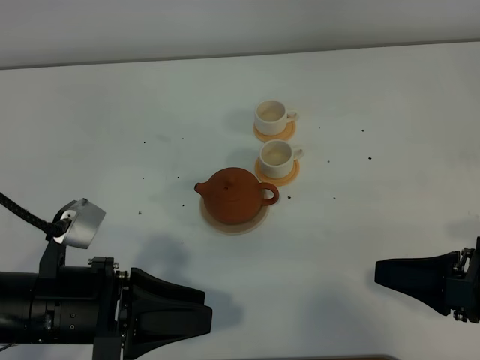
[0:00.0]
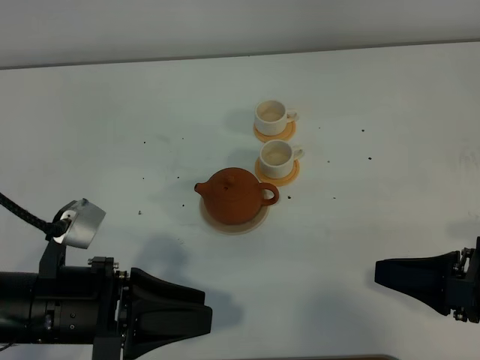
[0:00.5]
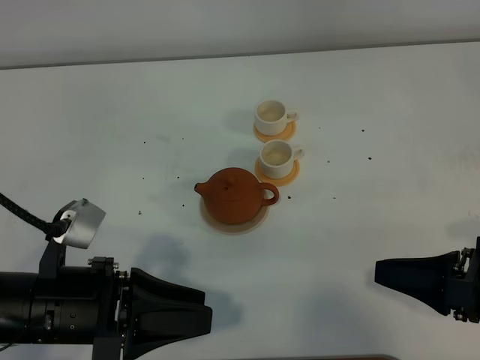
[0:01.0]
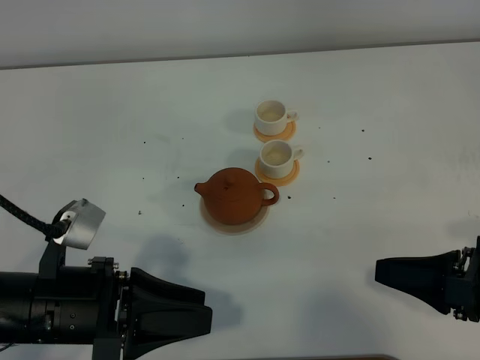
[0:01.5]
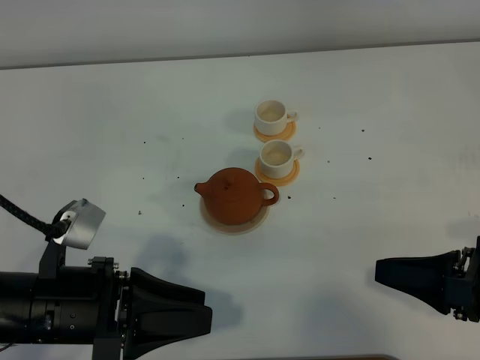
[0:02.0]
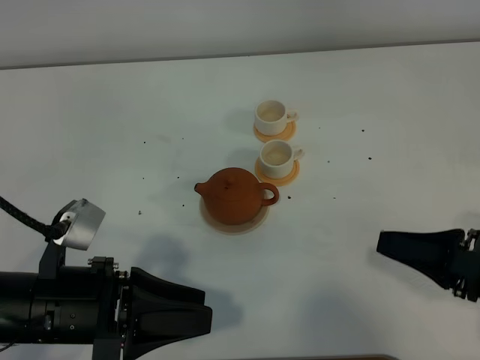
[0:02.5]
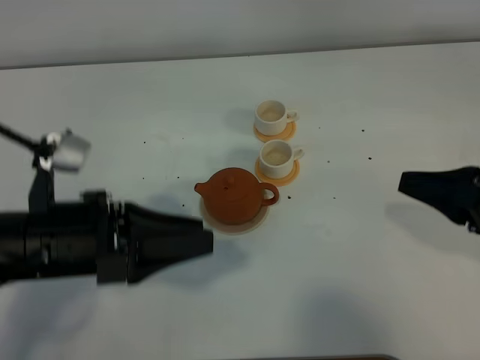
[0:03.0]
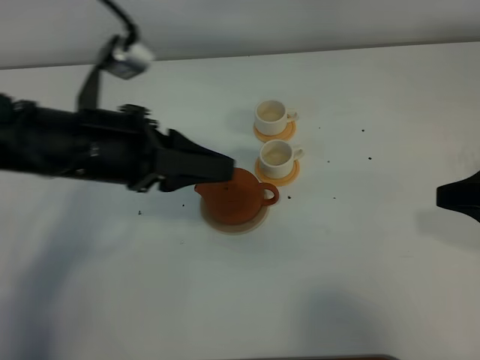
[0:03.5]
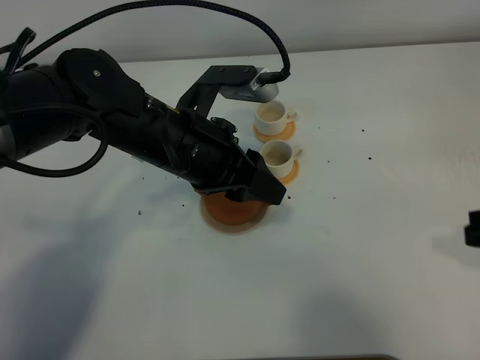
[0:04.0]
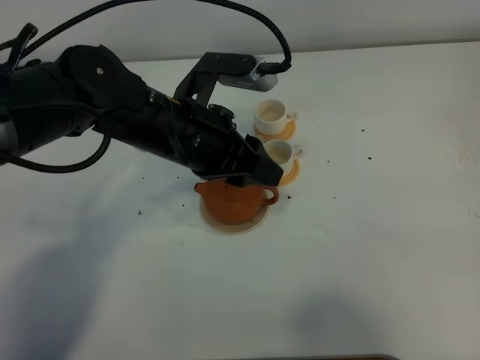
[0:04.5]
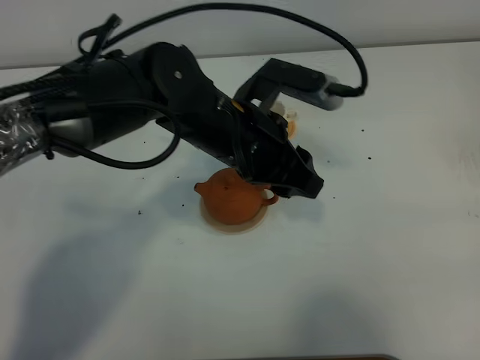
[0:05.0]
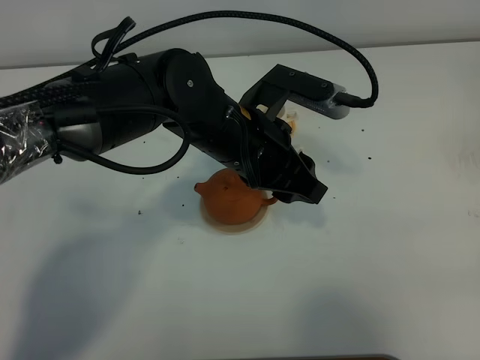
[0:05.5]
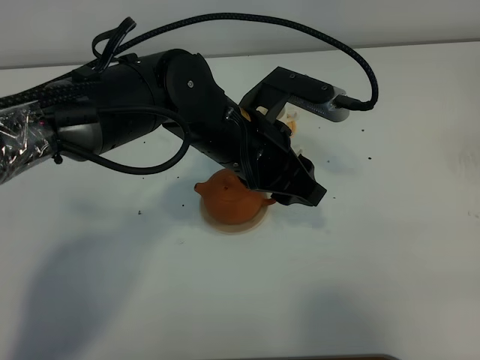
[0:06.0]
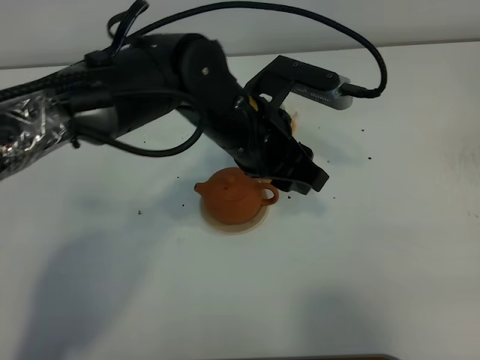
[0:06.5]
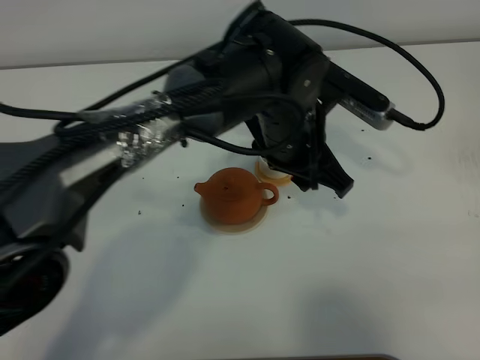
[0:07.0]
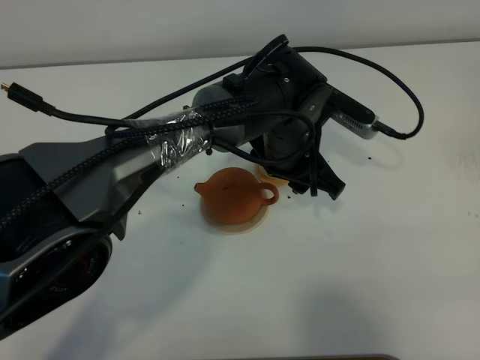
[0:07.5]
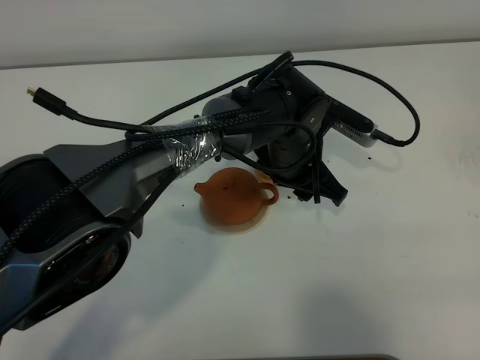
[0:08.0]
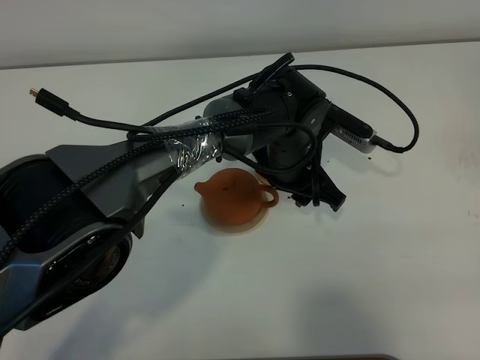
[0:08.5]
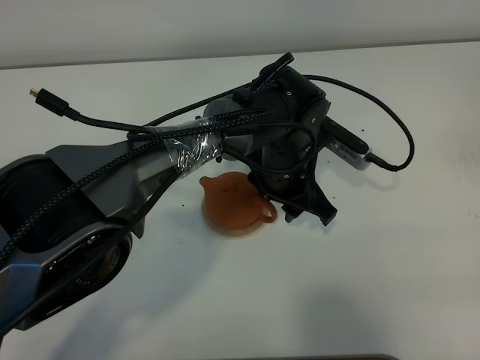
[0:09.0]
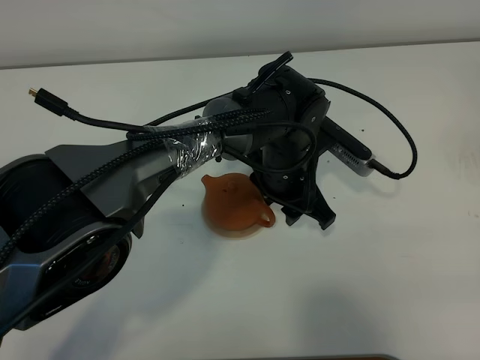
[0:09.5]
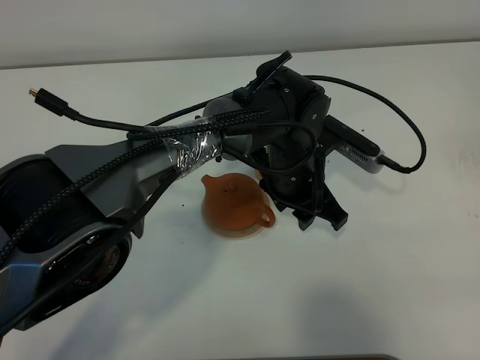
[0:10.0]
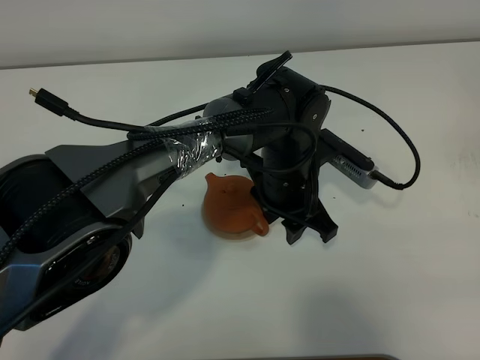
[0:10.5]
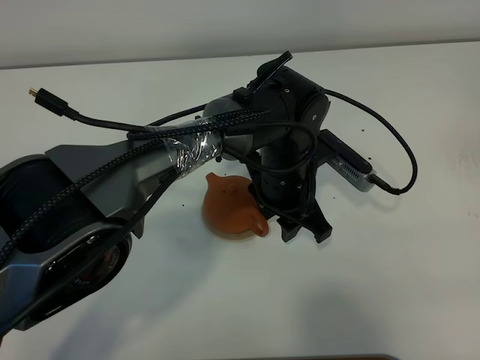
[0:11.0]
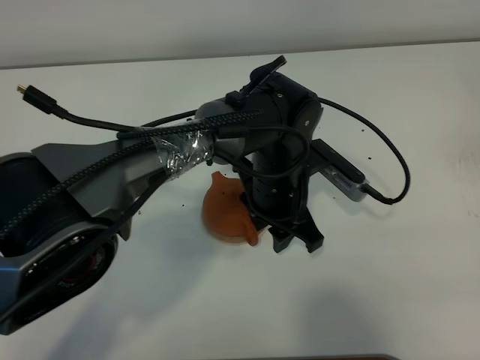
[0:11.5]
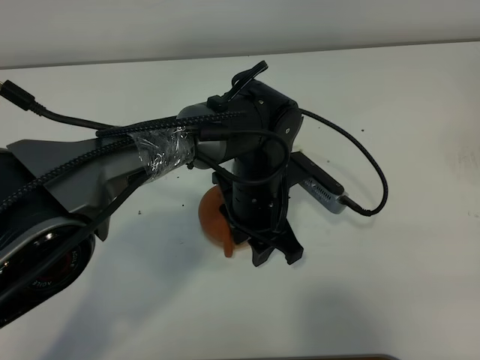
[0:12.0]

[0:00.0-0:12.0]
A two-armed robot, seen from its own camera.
Task of the whole recording: grasp the brown teapot and pour the tea into the two white teacups one by one, put the brown teapot back in its original place.
0:00.0 to 0:02.0: The two grippers keep their place.
0:02.0 to 0:04.0: The right gripper travels upward by some 5 cm. The left gripper moves forward and to the right, roughly 20 cm.
0:04.0 to 0:06.0: The left gripper shifts some 5 cm to the right, while the right gripper is displaced backward by some 15 cm.
0:06.0 to 0:08.0: The left gripper is displaced downward, to the right and forward by some 10 cm.
0:08.0 to 0:10.0: The grippers stay close to where they were, moving slightly.
0:10.0 to 0:12.0: The left gripper moves about 5 cm.

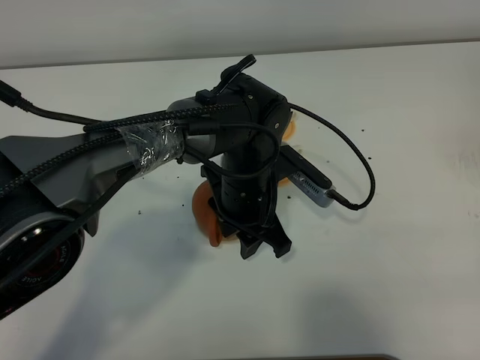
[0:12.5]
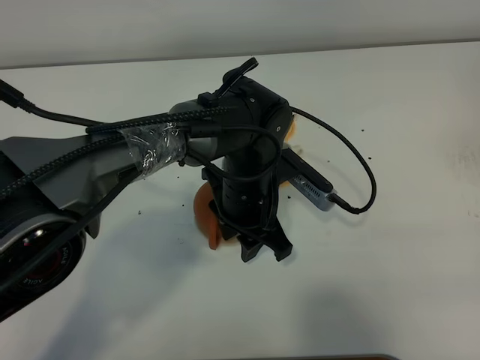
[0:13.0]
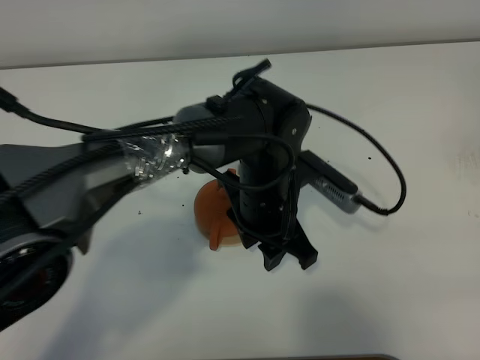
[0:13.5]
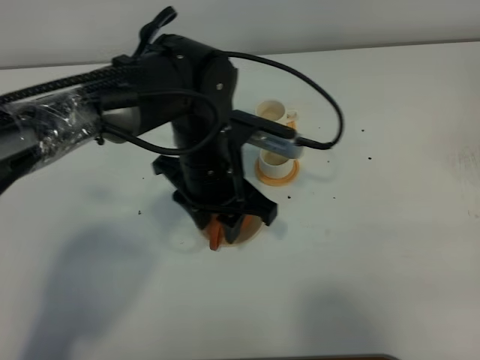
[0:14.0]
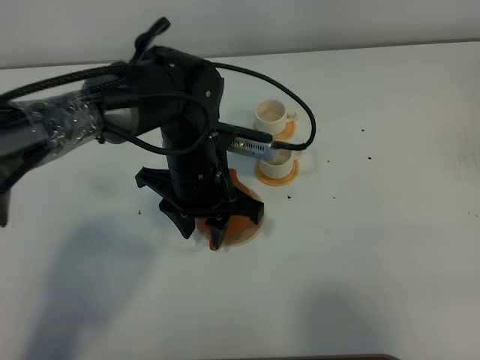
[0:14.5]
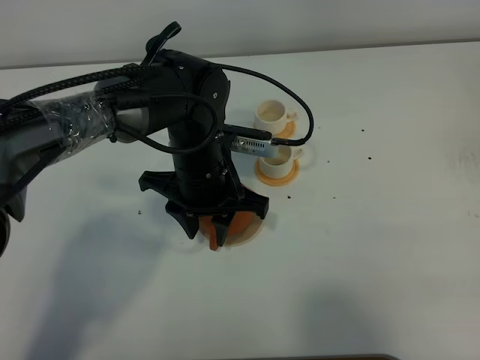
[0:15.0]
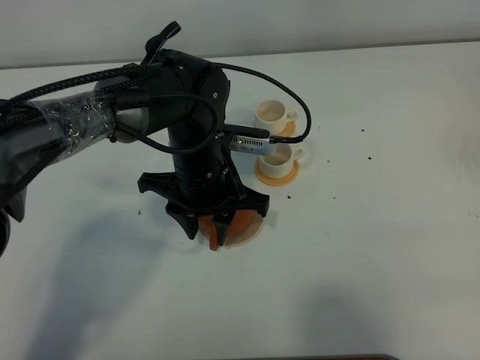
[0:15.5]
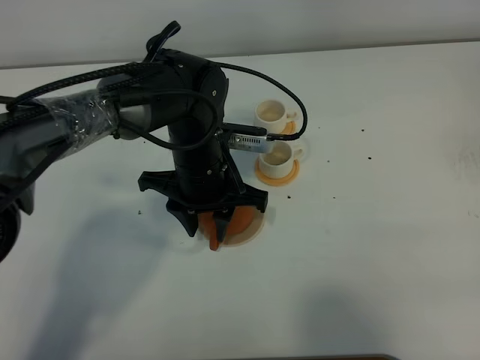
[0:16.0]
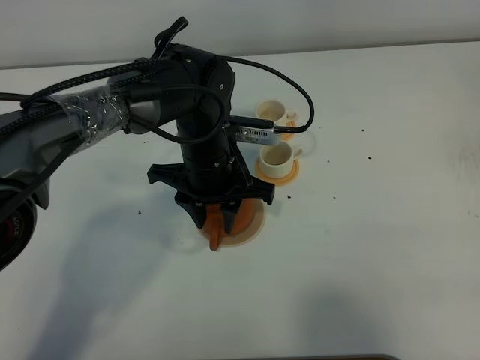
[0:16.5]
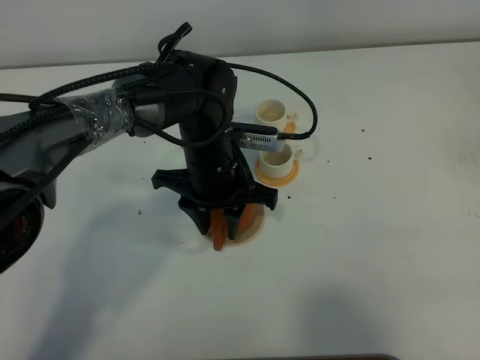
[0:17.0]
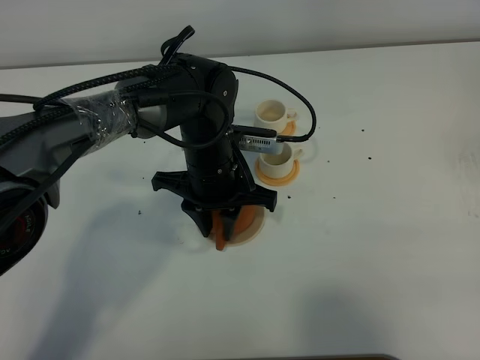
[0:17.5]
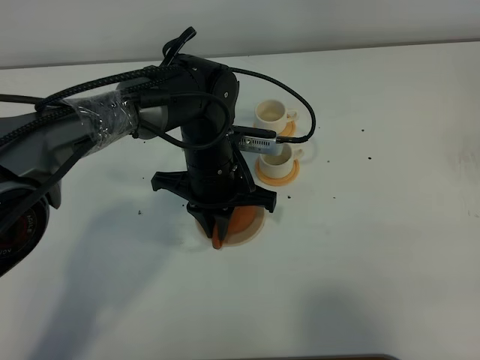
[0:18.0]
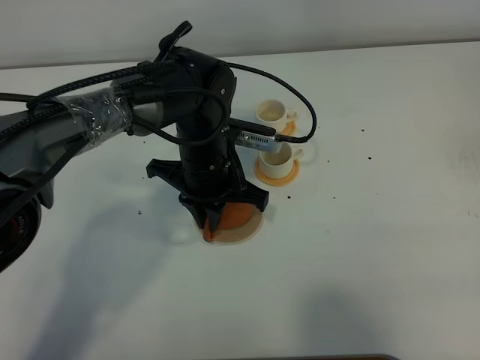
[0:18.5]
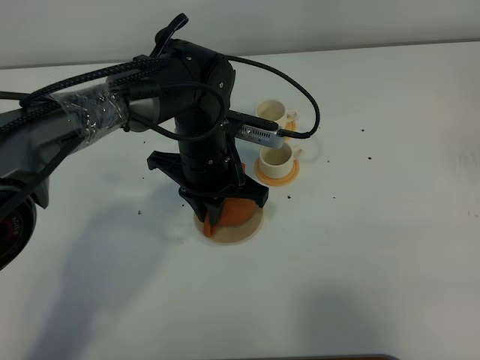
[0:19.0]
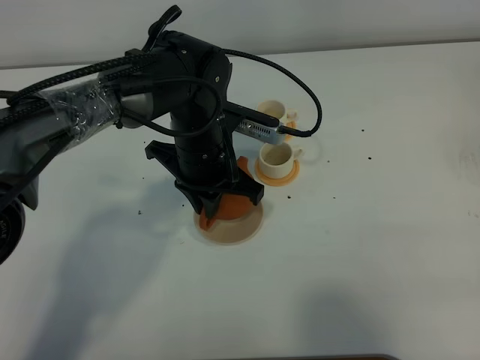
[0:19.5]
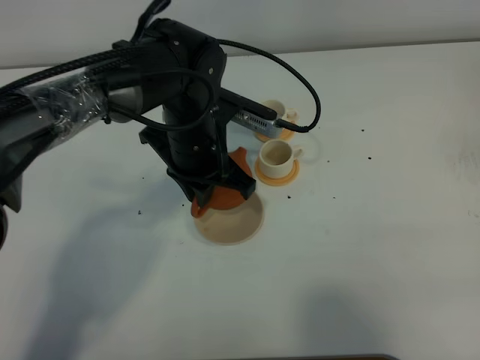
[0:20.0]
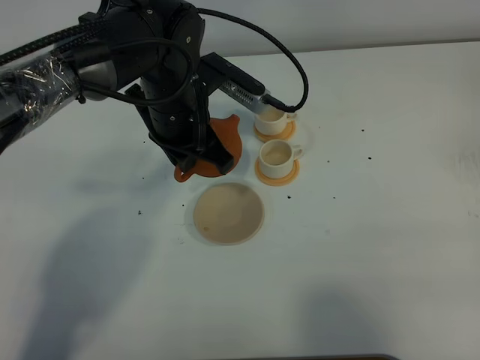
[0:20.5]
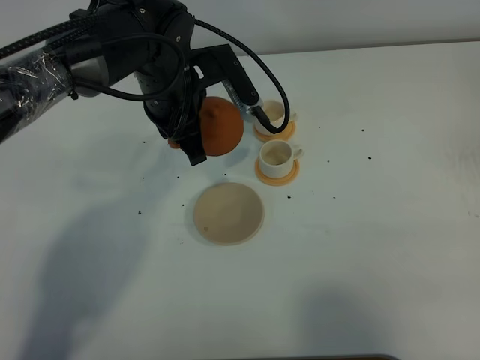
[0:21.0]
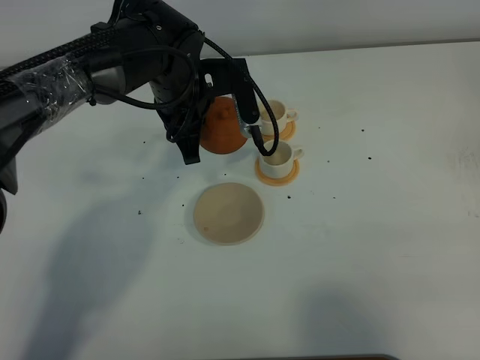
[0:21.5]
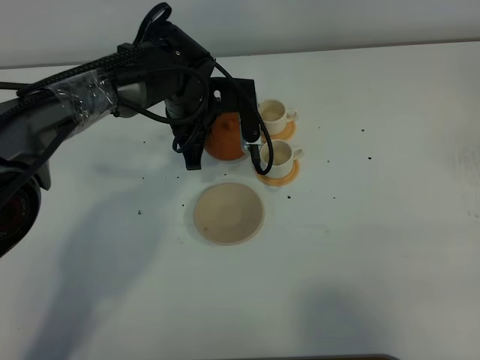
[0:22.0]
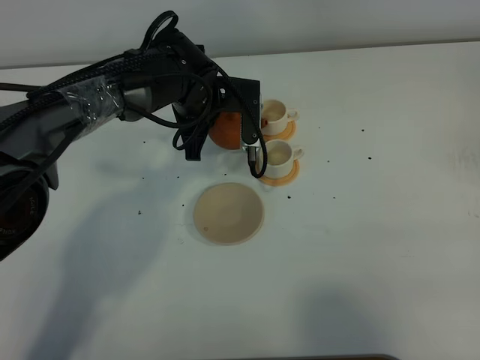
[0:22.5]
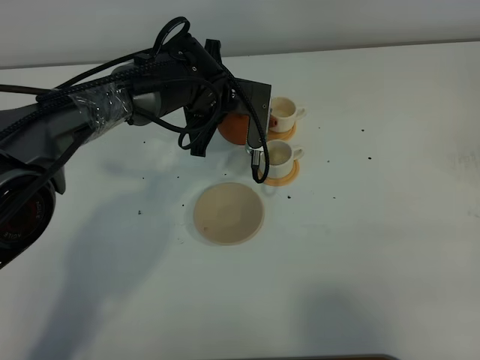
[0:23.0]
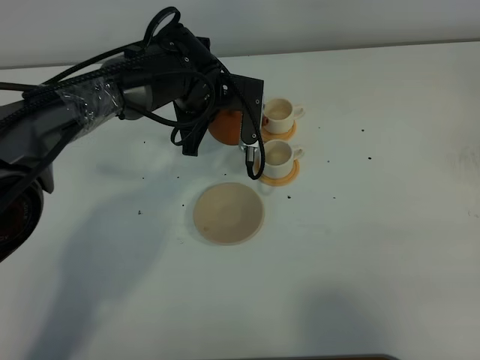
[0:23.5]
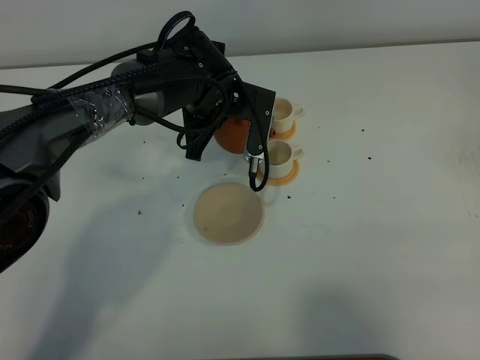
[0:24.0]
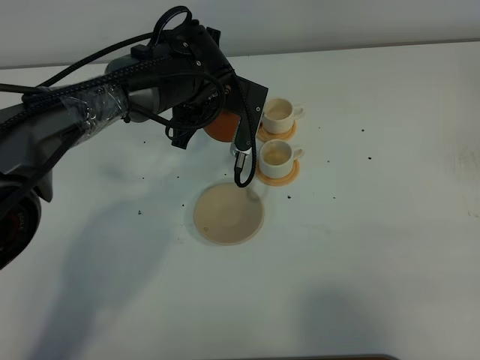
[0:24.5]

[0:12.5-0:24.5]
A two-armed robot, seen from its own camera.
Task of the whole recording: grasp the brown teapot and pour the tea into the two white teacups one by one, put the brown teapot back in its original place.
Step, 0:12.5 to 0:19.5: Pick up the teapot with the left gripper.
0:12.5 to 0:14.5: The left gripper travels to the left by approximately 5 cm.
0:14.5 to 0:16.5: The grippers move only a little.
0:16.5 to 0:18.5: The left gripper closes.
0:18.5 to 0:20.5: The left gripper heads upward, covering approximately 5 cm.
0:20.5 to 0:22.5: The left gripper is displaced forward and downward by some 10 cm.
0:22.5 to 0:24.5: The grippers move only a little.

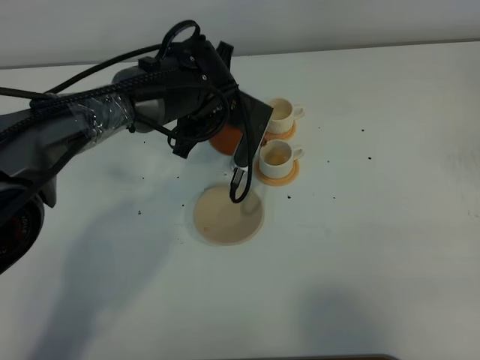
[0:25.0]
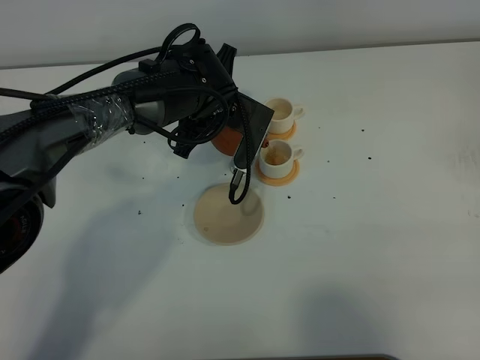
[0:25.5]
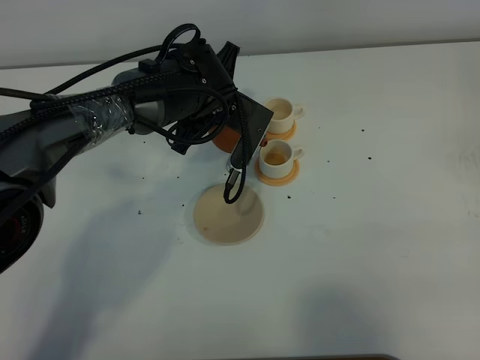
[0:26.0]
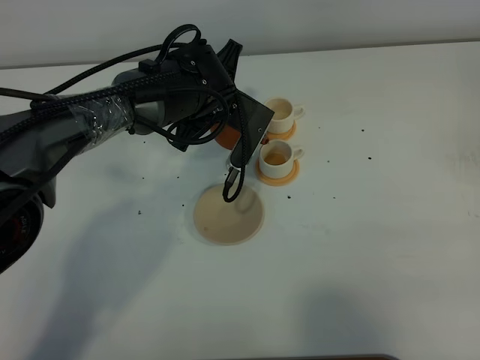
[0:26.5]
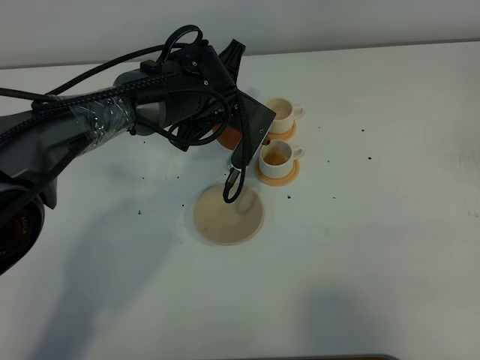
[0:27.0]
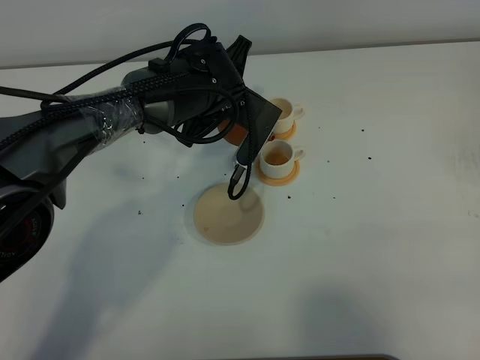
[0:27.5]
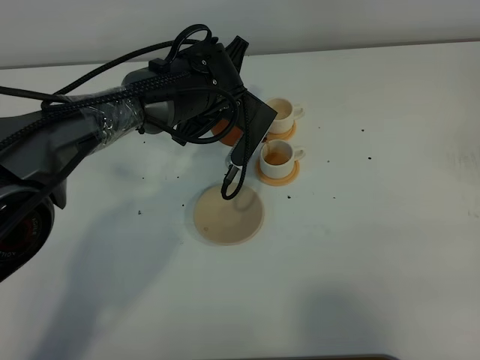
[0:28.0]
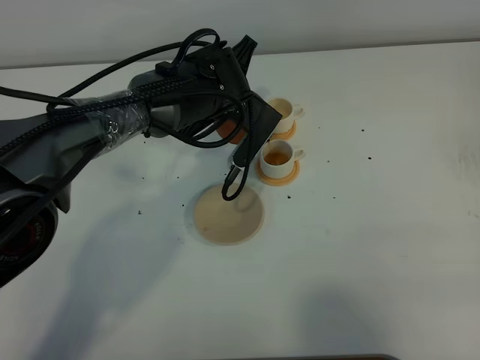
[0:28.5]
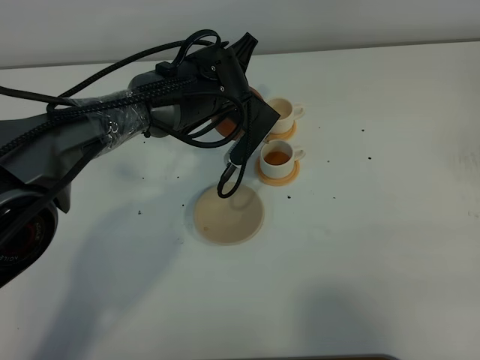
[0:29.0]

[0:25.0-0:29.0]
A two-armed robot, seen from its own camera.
Task of the whole recording: grasp the brown teapot and pour the tea into the two white teacups one by one, put the brown teapot back in its original place.
0:25.0 to 0:29.0: The grippers move only a little.
